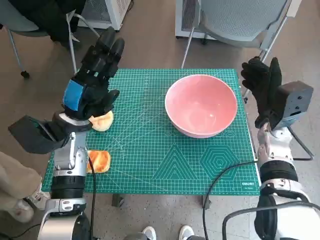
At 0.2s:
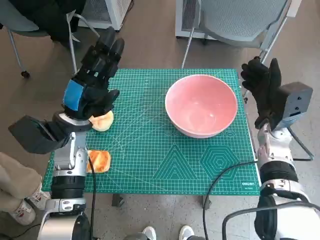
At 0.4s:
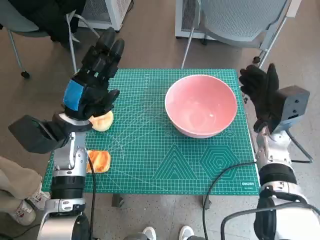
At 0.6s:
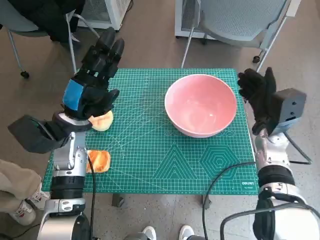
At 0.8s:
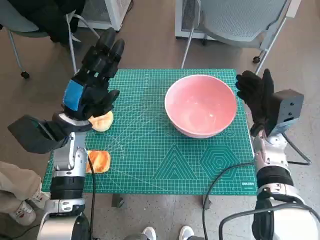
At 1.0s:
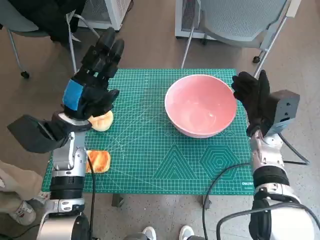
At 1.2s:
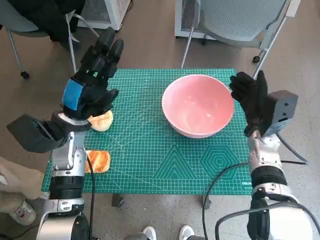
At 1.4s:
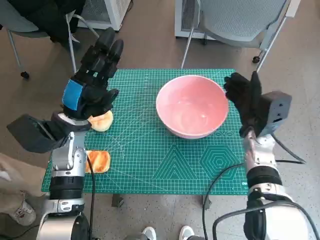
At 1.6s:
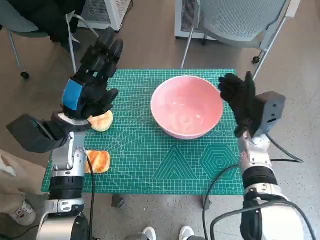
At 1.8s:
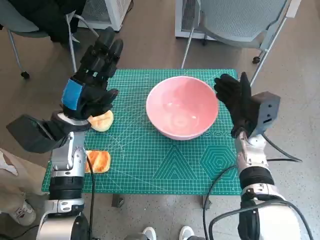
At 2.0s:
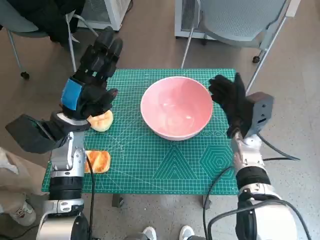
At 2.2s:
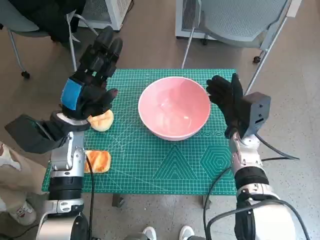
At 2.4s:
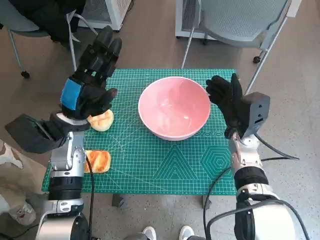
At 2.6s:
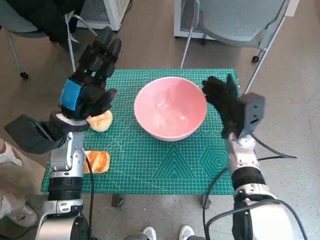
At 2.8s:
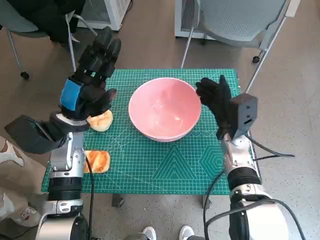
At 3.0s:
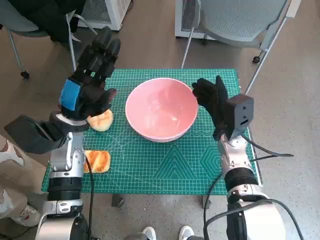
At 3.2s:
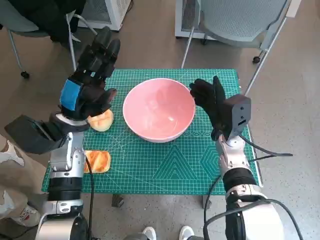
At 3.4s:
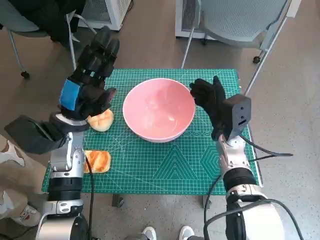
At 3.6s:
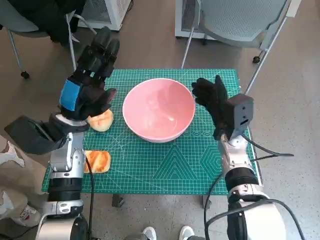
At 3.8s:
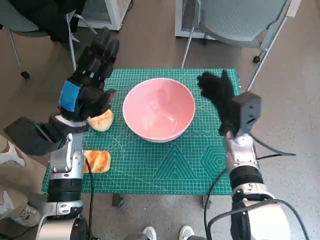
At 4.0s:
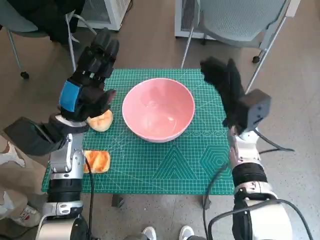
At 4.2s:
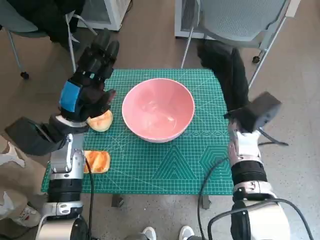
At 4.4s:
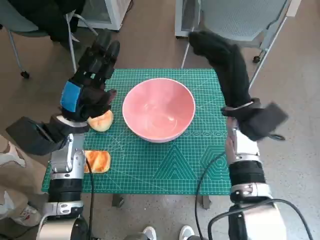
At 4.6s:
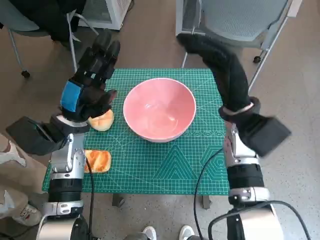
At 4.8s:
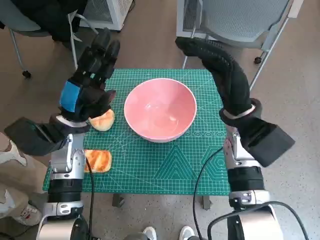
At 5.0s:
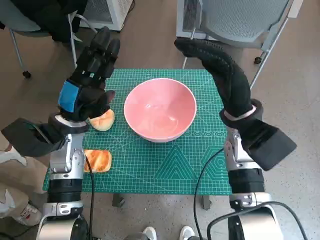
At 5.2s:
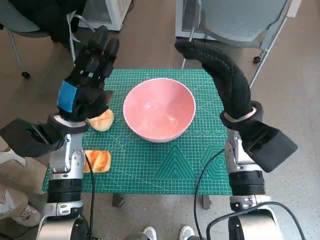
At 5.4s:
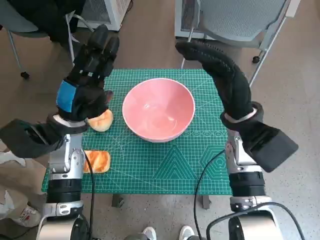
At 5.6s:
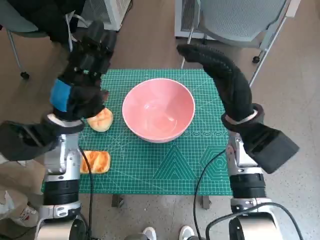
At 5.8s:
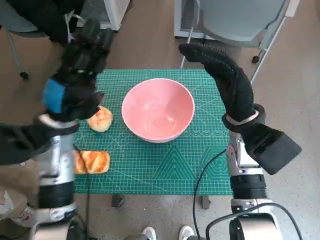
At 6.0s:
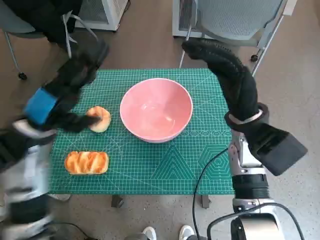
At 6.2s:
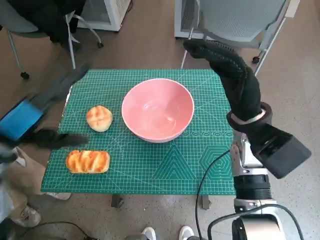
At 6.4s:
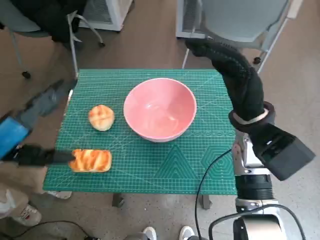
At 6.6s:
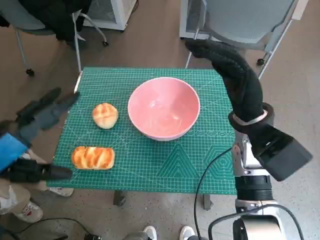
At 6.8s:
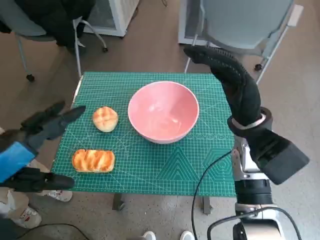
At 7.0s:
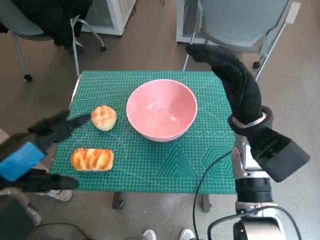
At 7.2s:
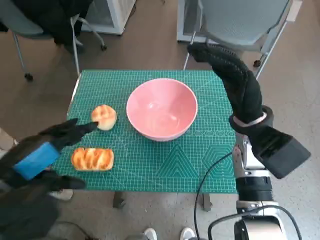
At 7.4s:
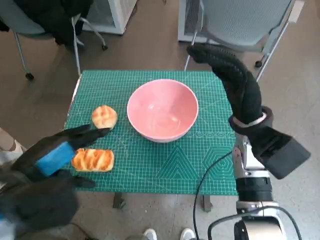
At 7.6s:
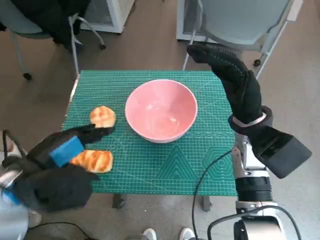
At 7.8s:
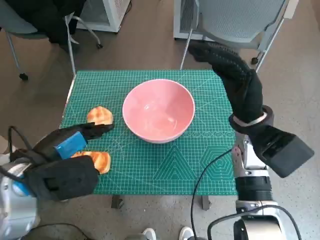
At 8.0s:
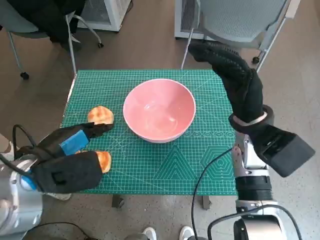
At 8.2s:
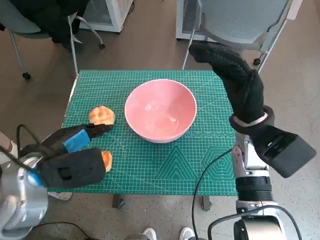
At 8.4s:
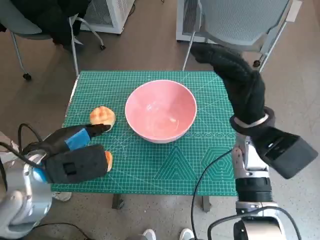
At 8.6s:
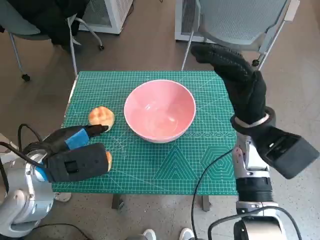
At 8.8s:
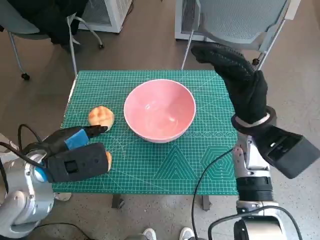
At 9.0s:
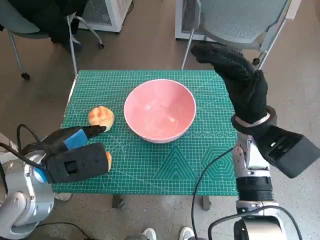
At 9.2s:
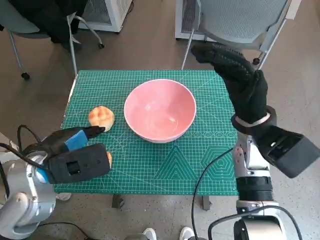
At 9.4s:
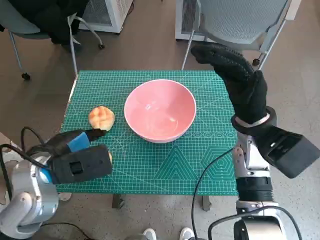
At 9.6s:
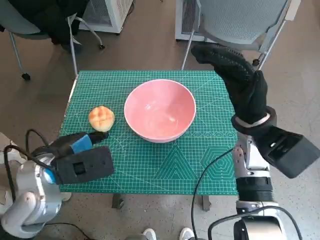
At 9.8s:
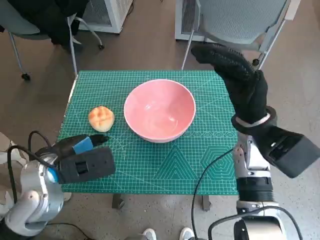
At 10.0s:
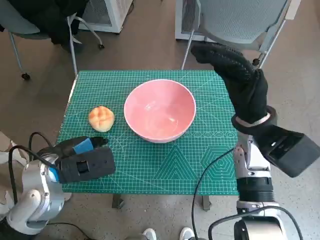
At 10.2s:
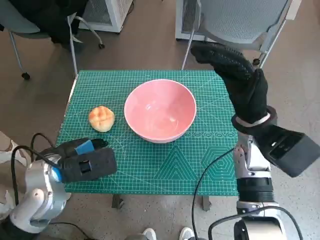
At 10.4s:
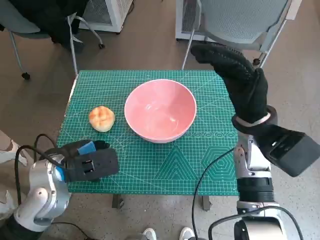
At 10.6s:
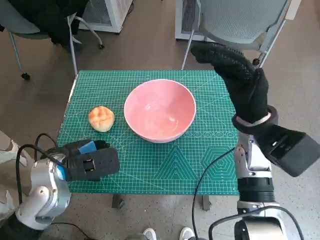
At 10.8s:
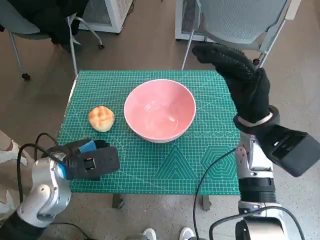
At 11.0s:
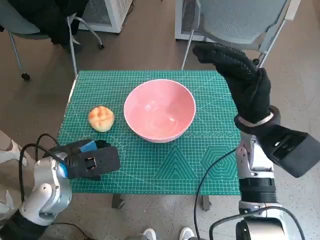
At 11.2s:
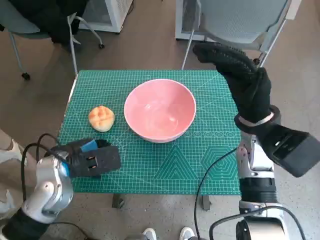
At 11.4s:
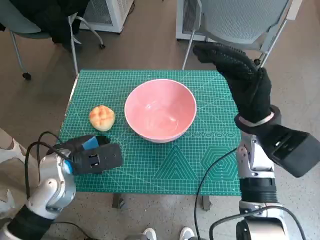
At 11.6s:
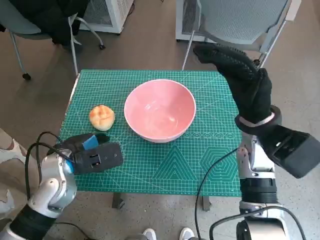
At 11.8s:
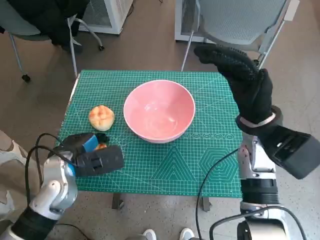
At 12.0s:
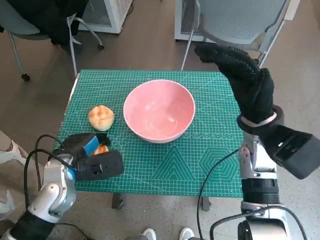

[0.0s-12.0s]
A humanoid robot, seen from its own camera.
Step, 0.0s to 3.6s: Move the pink bowl to the center of table with right hand.
3.0s to 4.4s: The right hand heads upward, covering roughly 10 cm.
4.4s to 6.0s: The left hand shifts by about 5 cm.
6.0s to 7.6s: The left hand heads backward, covering about 10 cm.
7.6s to 9.0s: There are only small adjustments of the hands.
9.0s to 10.4s: The hands stay close to where they were, moving slightly.
10.4s to 12.0s: The hands move only a little.

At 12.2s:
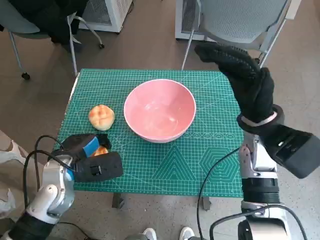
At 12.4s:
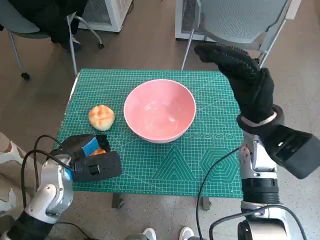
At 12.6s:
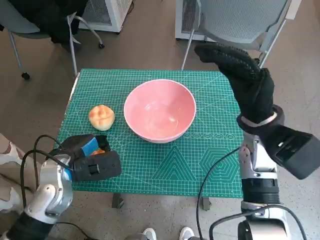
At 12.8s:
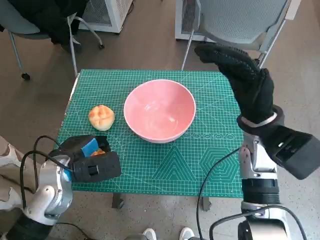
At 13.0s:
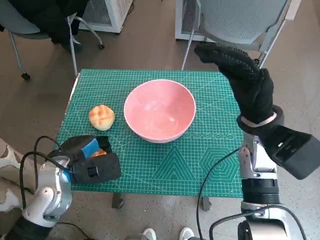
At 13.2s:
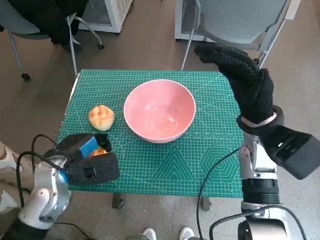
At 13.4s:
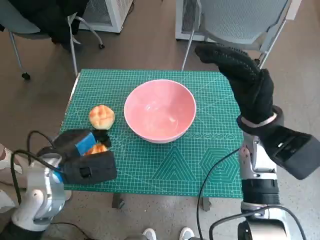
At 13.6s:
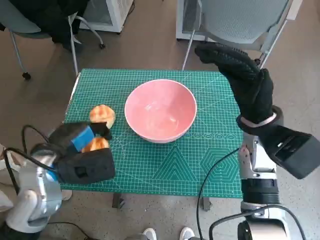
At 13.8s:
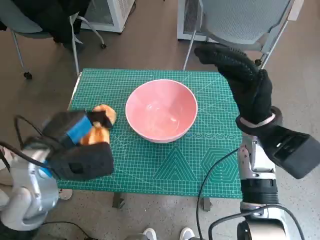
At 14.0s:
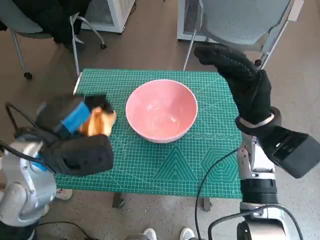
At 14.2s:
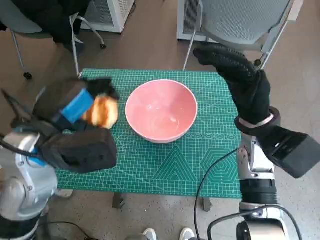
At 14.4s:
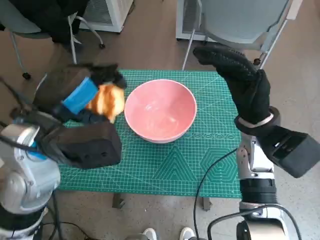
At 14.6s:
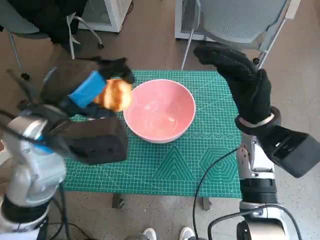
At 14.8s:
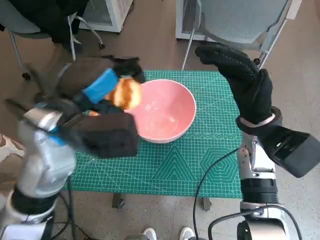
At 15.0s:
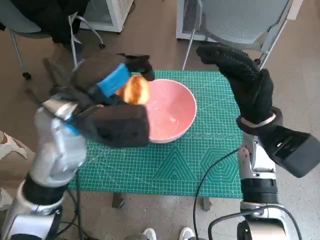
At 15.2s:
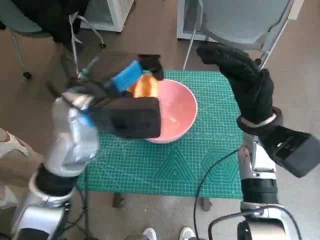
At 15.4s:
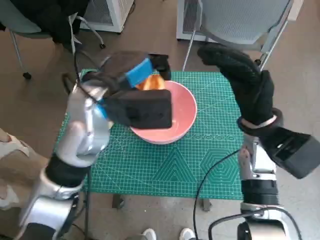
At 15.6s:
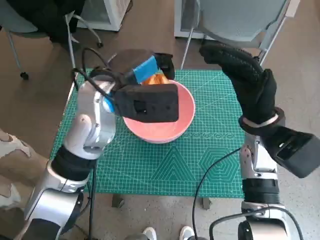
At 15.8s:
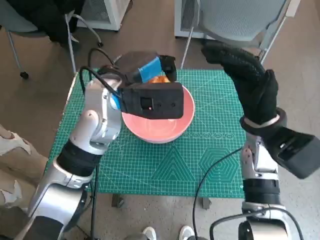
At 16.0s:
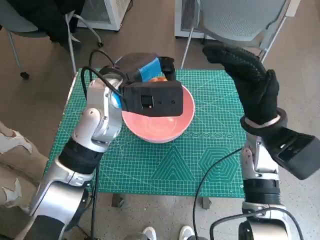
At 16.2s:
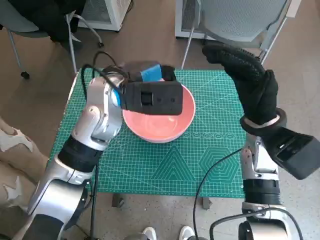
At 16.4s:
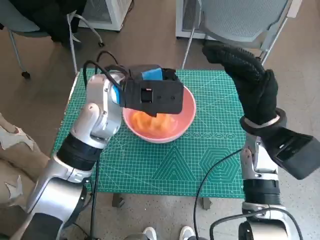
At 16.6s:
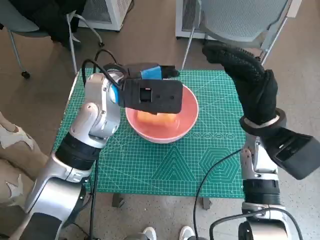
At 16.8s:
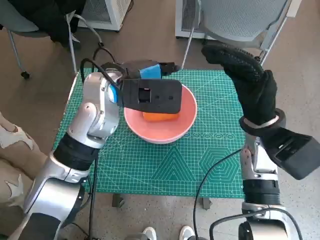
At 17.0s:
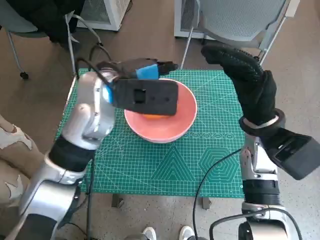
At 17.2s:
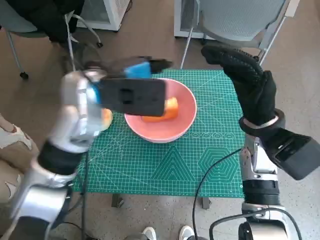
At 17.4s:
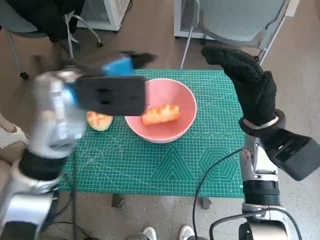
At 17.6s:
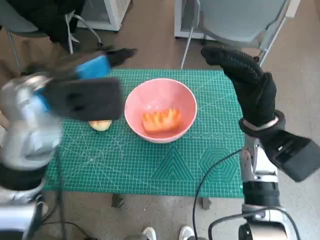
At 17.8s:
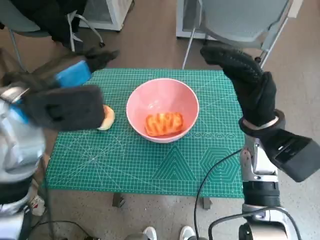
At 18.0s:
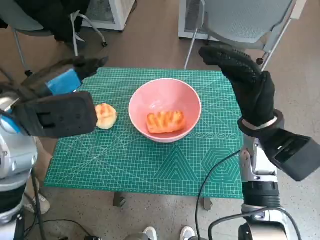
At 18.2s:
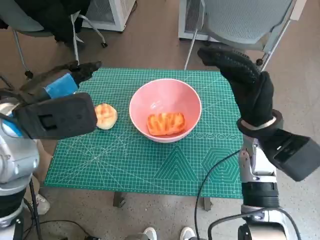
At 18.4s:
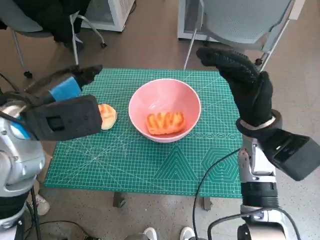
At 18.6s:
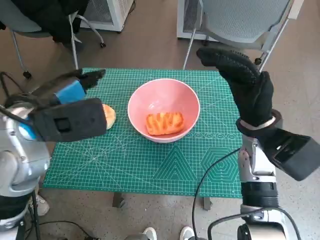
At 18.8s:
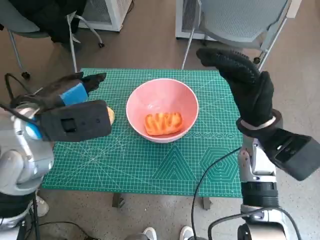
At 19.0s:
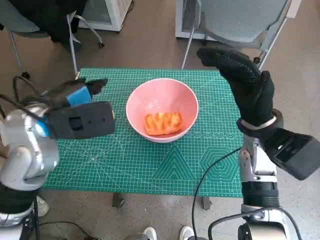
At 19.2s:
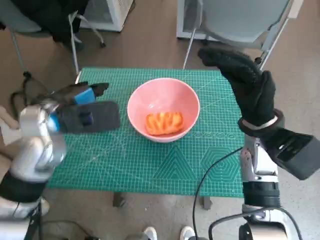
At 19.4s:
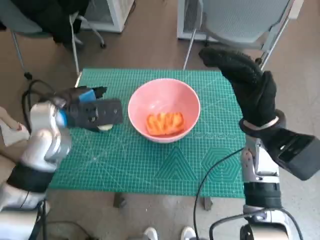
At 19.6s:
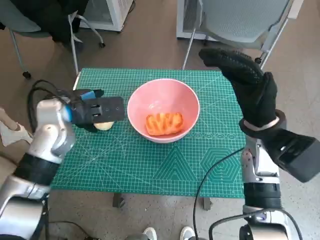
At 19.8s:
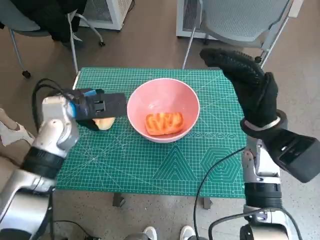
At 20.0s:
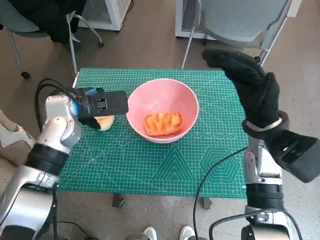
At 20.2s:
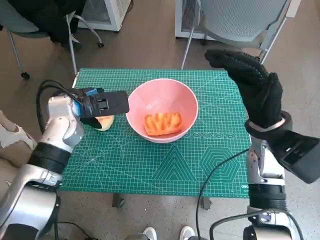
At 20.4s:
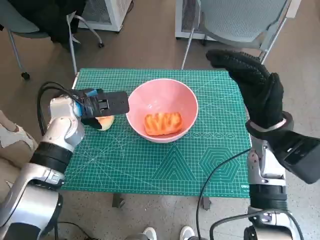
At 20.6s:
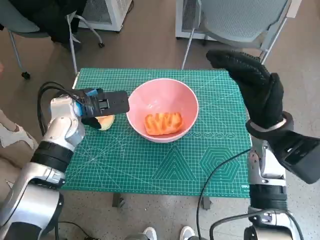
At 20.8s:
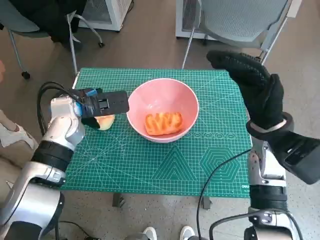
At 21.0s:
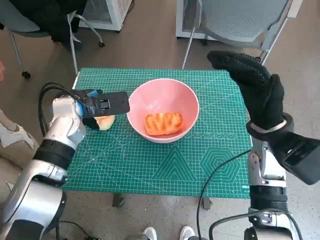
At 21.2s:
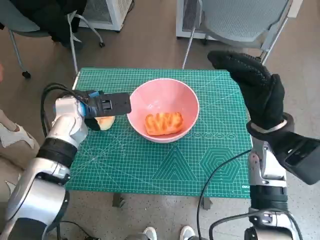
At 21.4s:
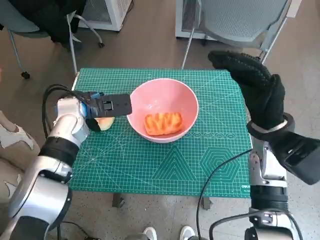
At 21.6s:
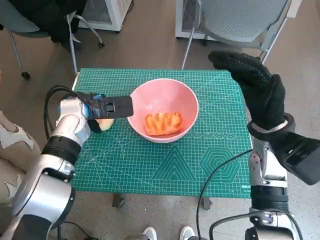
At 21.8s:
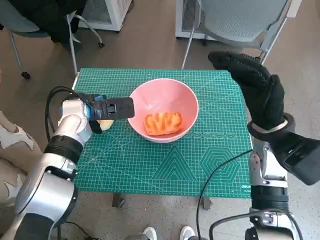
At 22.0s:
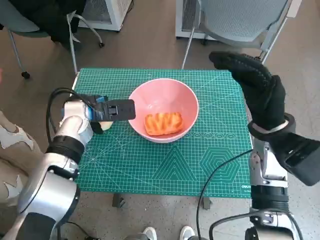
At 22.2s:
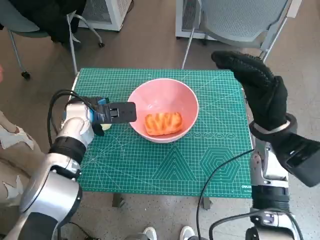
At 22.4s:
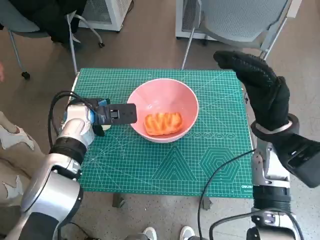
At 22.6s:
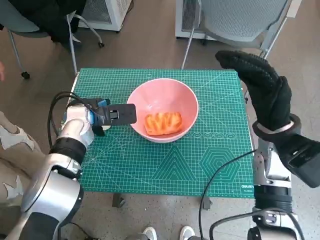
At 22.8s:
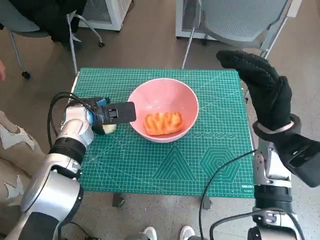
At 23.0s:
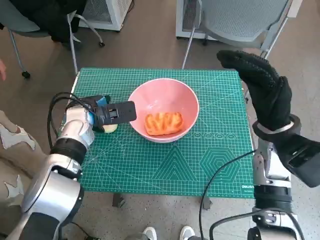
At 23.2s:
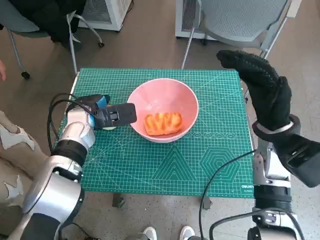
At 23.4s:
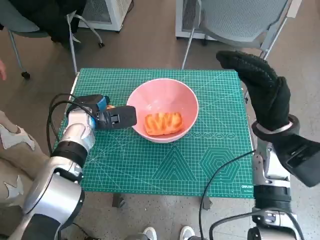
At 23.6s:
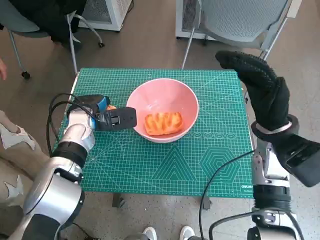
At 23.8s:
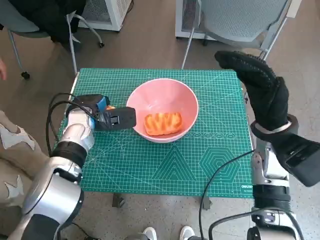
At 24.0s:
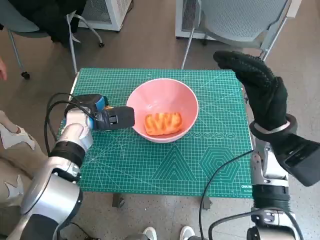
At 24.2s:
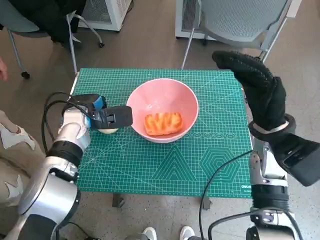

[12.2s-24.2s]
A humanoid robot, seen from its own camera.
Step, 12.2s to 16.8s: Place the long bread in pink bowl with left hand.
12.2s to 13.8s: The left hand shifts approximately 10 cm upward.
13.8s to 15.2s: The left hand moves to the right, upward and forward, approximately 10 cm.
15.2s to 16.6s: The left hand is displaced forward by roughly 5 cm.
16.6s to 18.2s: The left hand goes roughly 15 cm to the left and backward.
18.2s to 19.8s: The left hand goes approximately 10 cm downward and forward.
19.8s to 21.2s: The hands stay close to where they were, moving slightly.
21.2s to 24.2s: The hands move only a little.
